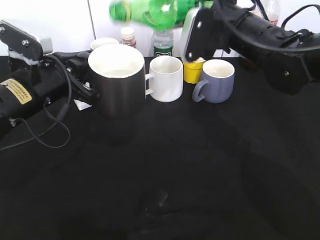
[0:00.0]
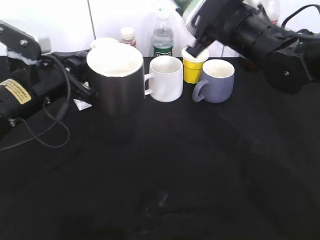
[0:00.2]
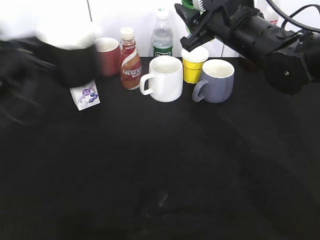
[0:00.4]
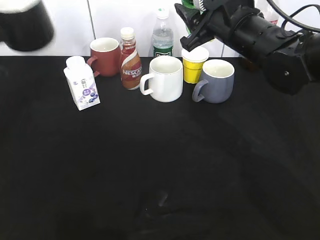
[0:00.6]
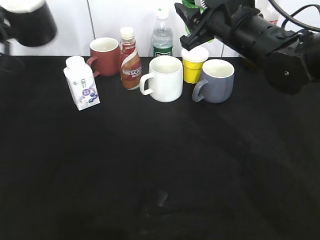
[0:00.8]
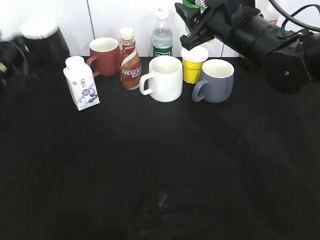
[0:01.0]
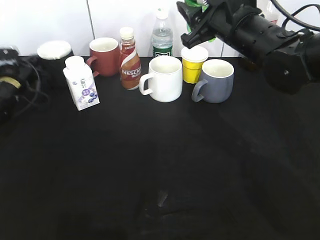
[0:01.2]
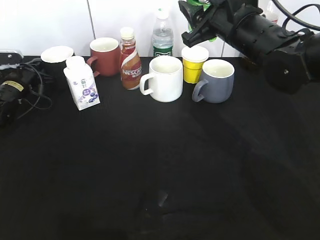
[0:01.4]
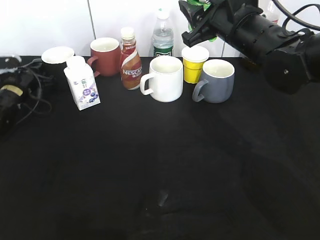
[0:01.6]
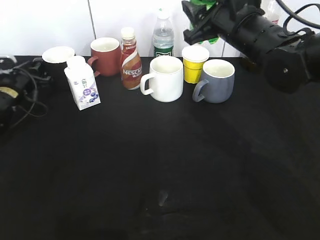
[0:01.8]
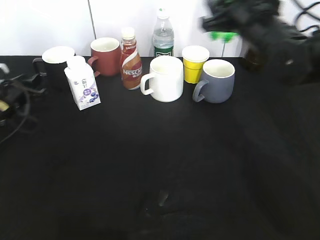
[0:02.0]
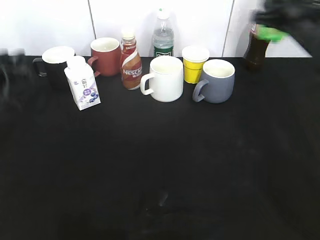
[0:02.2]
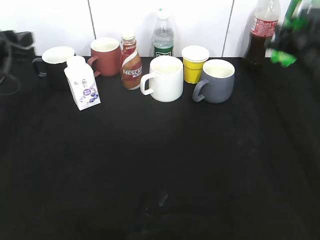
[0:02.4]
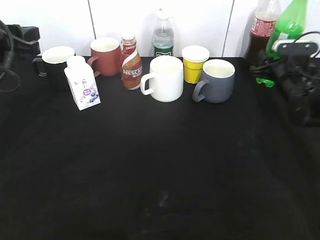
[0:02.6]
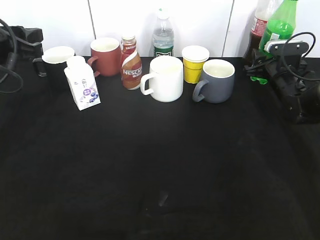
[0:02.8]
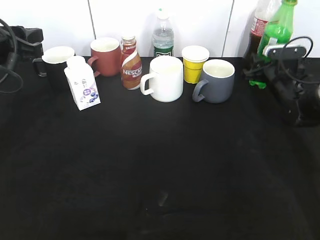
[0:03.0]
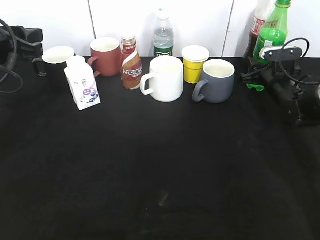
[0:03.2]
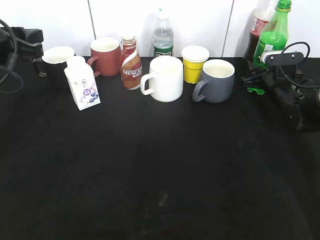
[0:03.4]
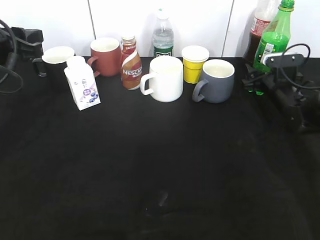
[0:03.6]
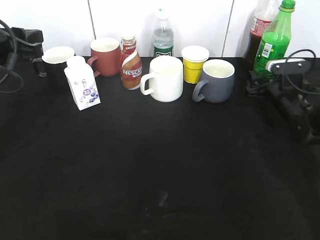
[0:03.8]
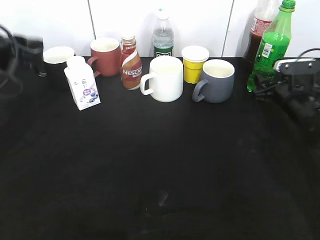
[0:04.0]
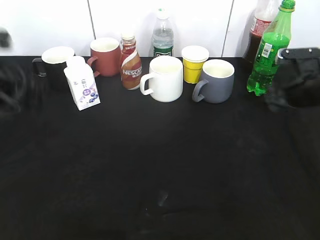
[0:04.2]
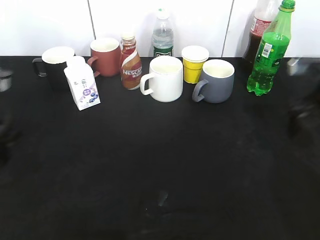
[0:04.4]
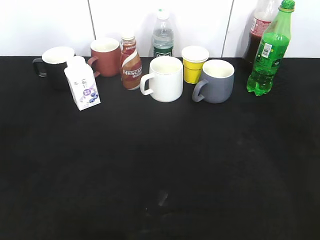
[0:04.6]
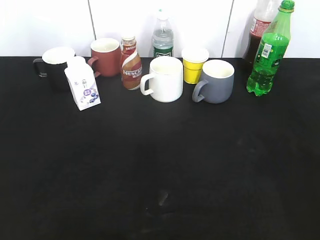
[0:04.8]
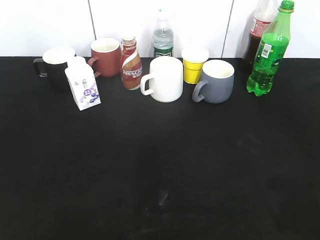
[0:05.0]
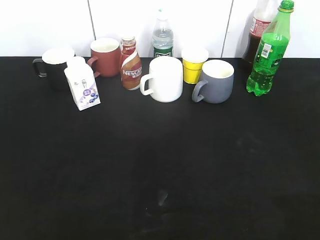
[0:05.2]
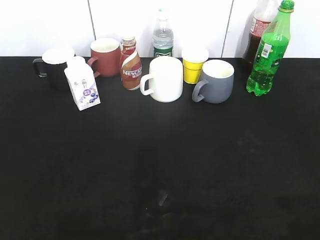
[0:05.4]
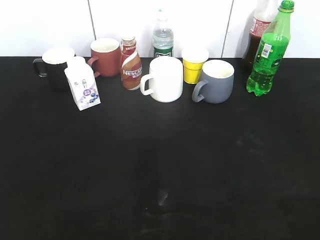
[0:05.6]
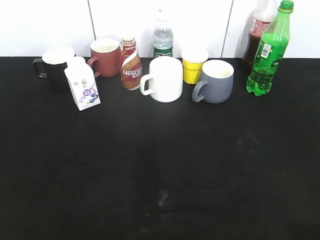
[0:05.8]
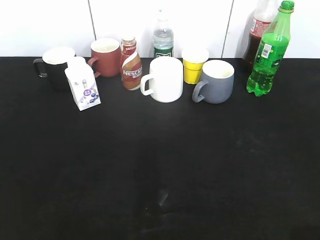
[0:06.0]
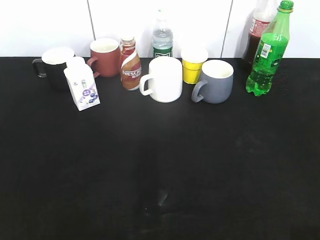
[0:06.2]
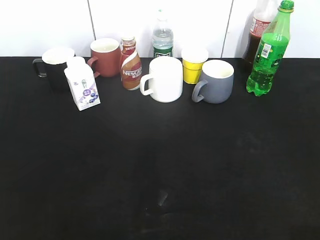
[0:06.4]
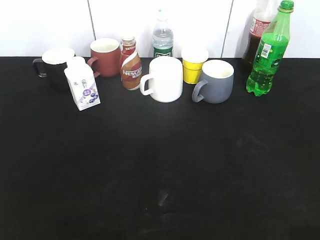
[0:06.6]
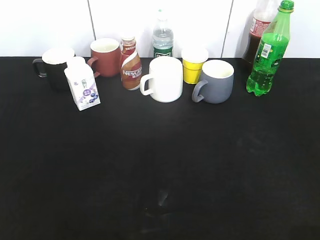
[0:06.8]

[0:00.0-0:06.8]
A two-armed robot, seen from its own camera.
Step, 0:00.2 to 0:01.6: Place the black cup on the table with left gripper.
Step, 0:01.8 to 0:03.6: Place the sprite bottle on the table with right gripper.
0:00.0 to 0:01.4: The left gripper goes about 30 cm forward, to the left and downward.
0:01.4 to 0:02.8: The left gripper heads upward and backward, covering some 25 cm, and opens up, while the right gripper moves downward, to the right and forward, some 25 cm.
0:02.8 to 0:04.0: The right gripper travels backward by approximately 10 cm, and opens its fingers.
0:04.0 to 0:05.4: The right gripper moves backward and upward, about 40 cm. The left gripper heads backward, covering some 30 cm.
